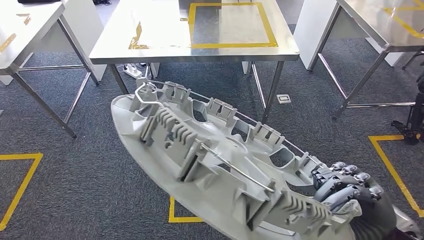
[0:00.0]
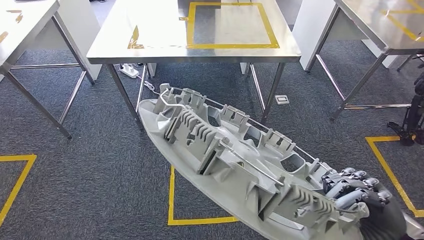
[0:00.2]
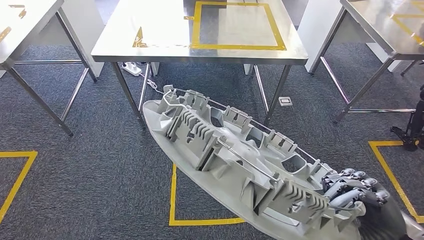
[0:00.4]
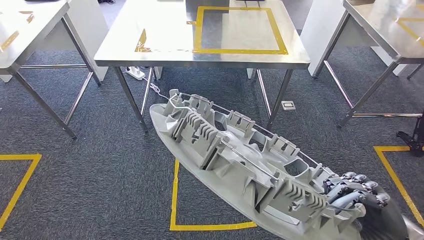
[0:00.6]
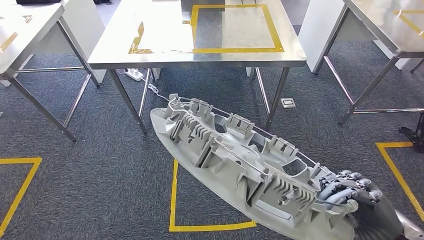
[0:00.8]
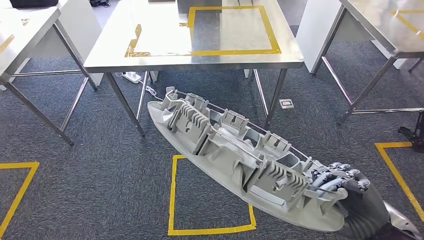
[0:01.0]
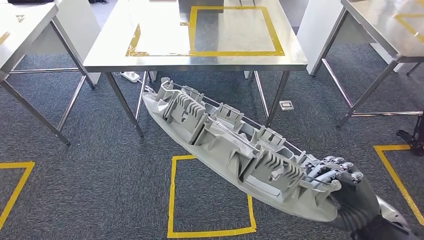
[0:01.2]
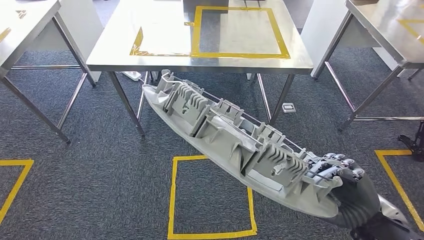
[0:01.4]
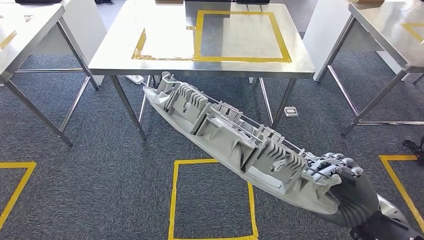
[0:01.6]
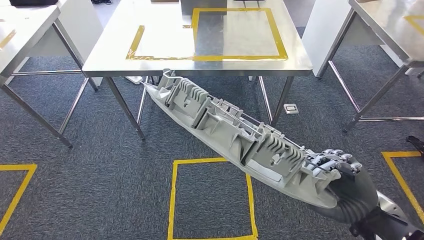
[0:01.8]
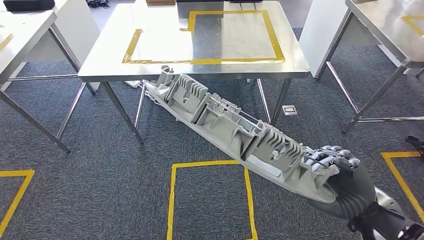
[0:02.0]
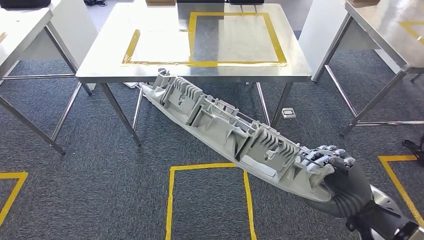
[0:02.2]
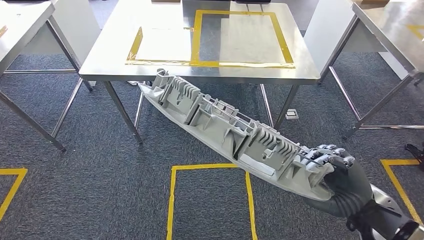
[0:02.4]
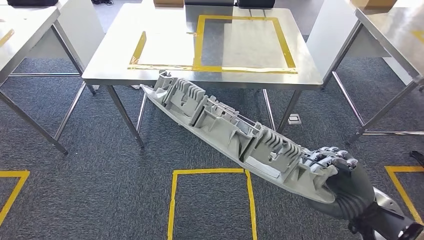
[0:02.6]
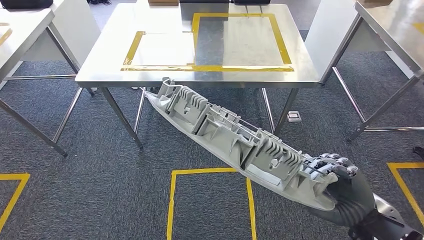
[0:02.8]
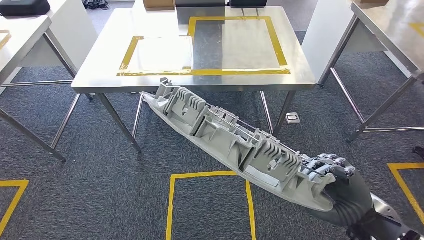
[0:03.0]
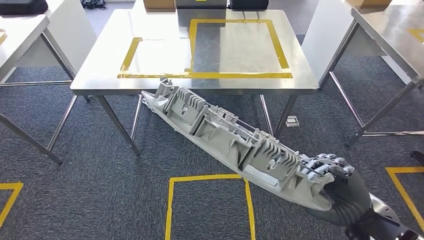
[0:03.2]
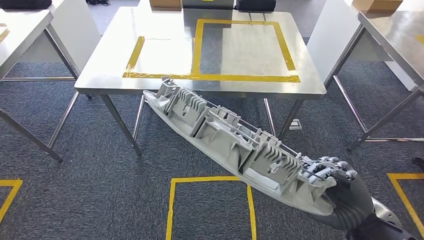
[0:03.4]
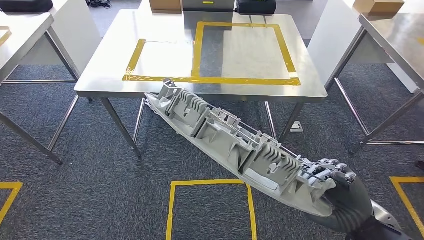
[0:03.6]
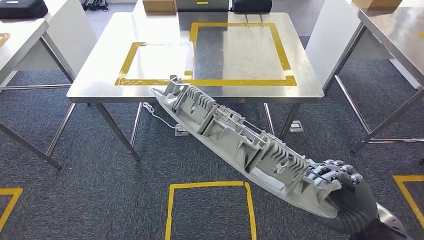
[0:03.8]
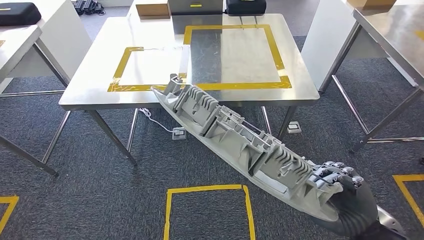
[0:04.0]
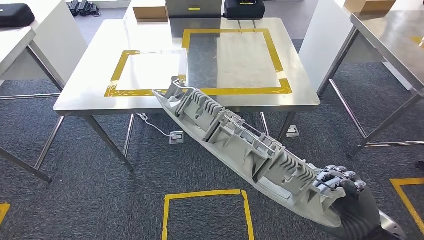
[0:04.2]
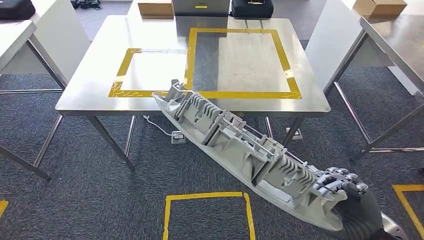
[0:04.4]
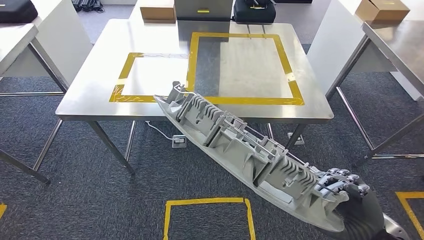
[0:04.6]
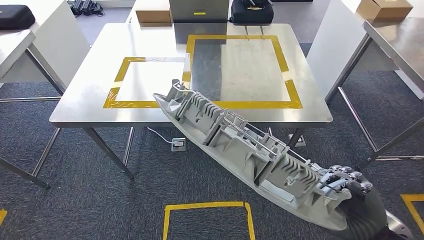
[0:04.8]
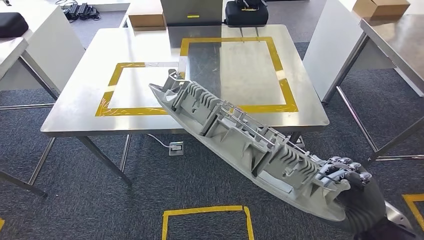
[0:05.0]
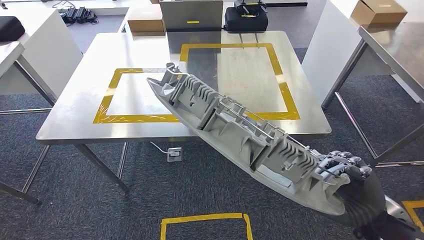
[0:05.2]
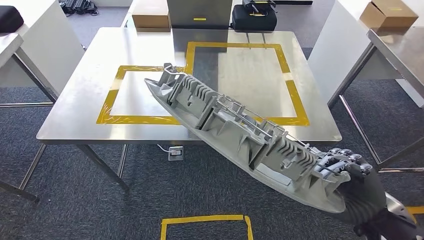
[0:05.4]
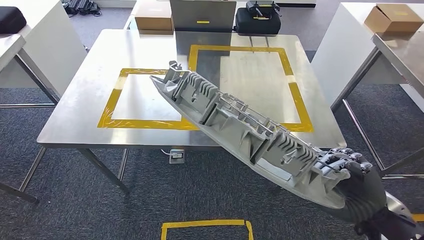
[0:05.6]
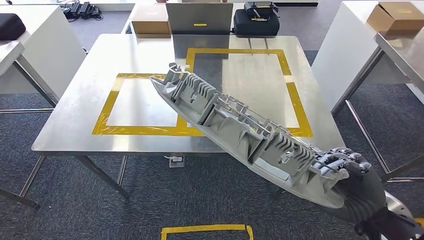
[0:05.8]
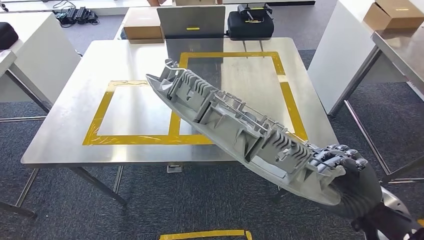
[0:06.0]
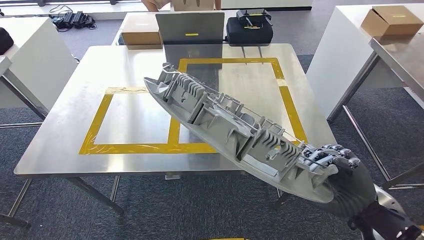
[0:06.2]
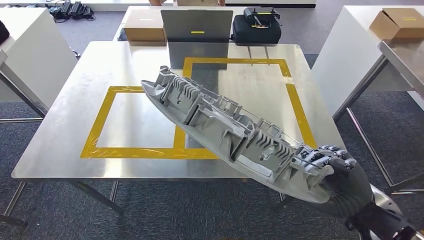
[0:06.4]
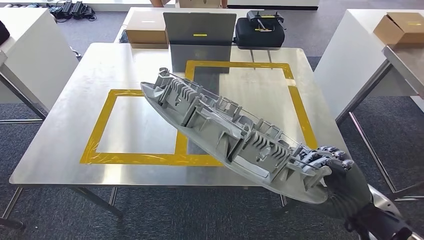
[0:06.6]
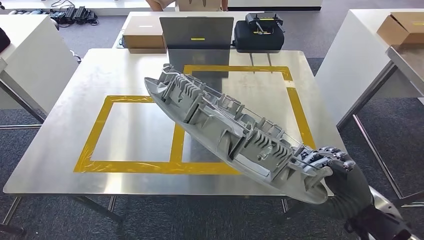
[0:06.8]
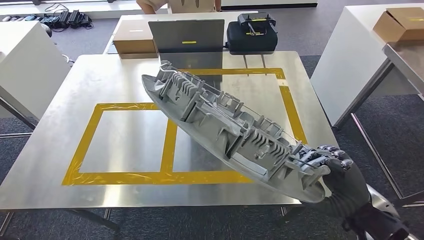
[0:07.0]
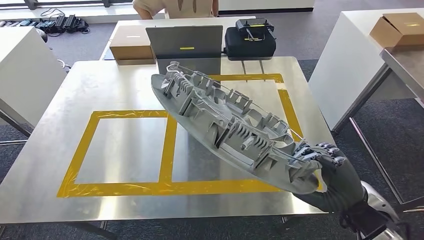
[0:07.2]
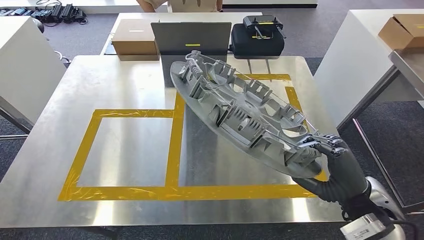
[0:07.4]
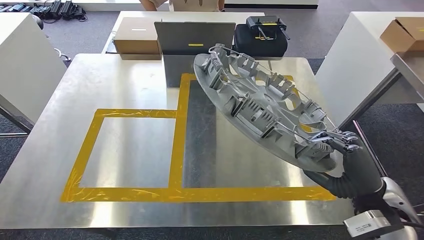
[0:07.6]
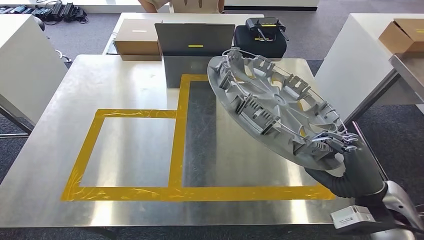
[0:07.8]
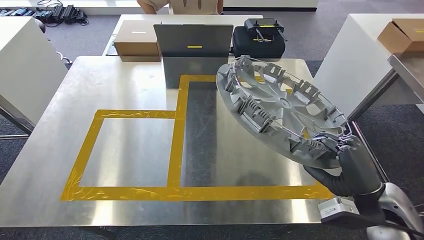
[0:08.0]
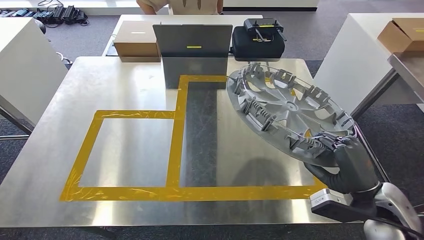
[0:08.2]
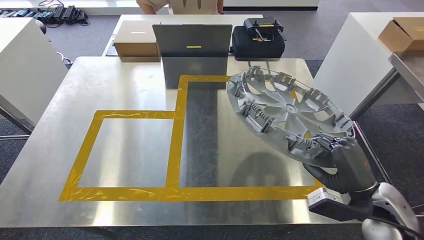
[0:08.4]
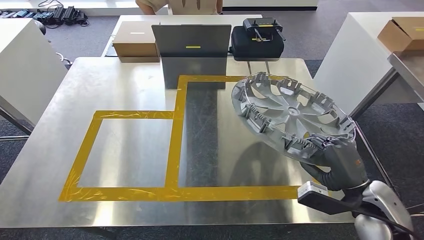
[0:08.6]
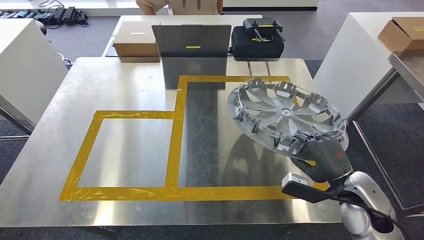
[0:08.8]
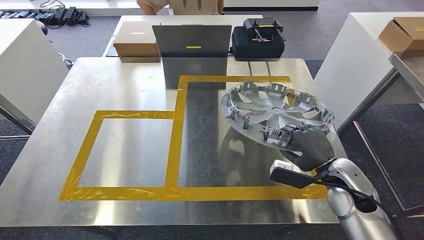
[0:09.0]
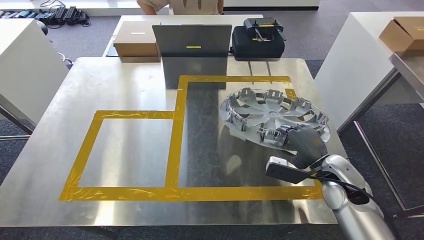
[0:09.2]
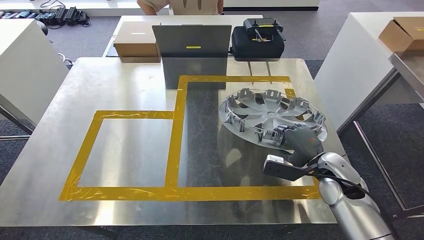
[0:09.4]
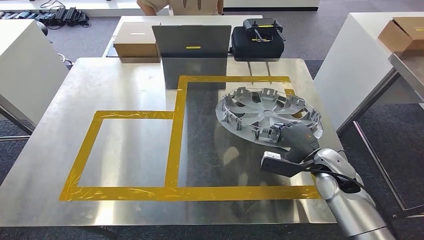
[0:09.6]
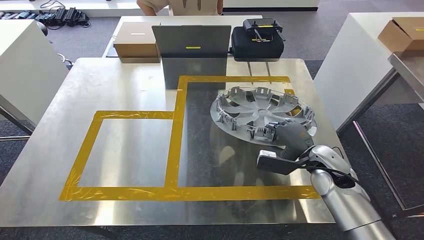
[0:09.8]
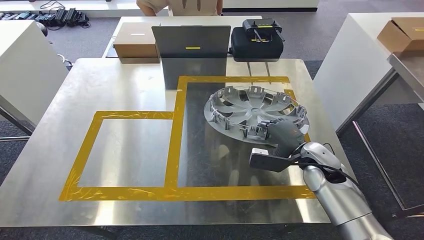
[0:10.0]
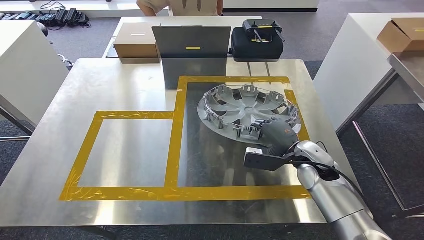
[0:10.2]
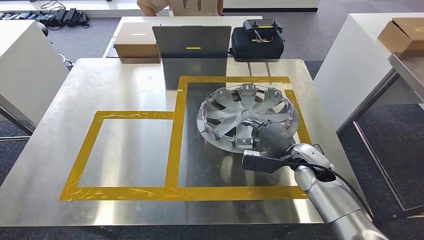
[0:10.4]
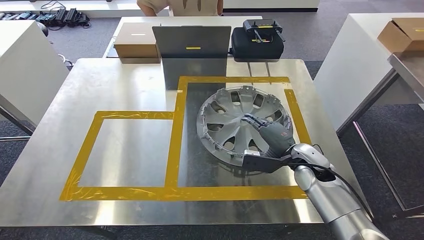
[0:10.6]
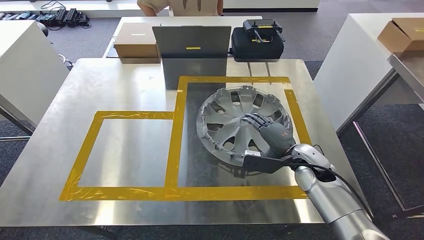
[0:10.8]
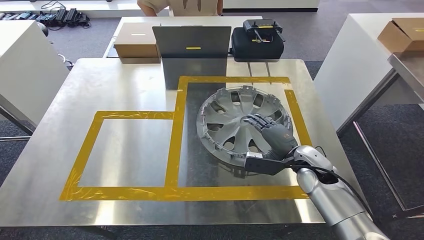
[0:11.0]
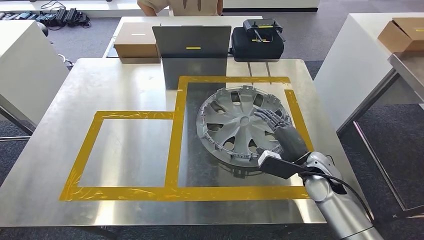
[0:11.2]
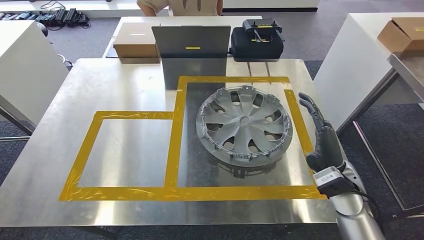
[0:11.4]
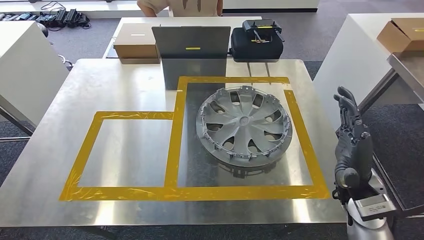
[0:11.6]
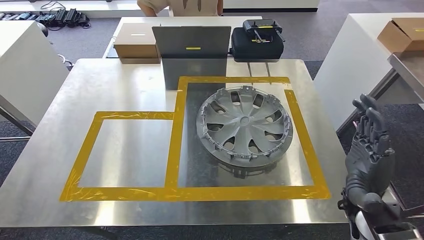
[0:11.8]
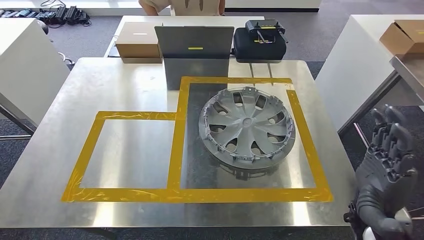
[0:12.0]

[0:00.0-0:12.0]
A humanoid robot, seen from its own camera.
Step, 0:00.0 to 0:07.2: Move the small parts to the workbench.
Step, 0:07.4 to 0:11.4: Insert the small parts into the corresponding holes on the workbench.
0:09.0 to 0:10.4: The right hand travels forward and to the left by about 10 cm.

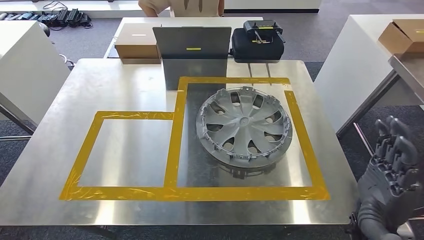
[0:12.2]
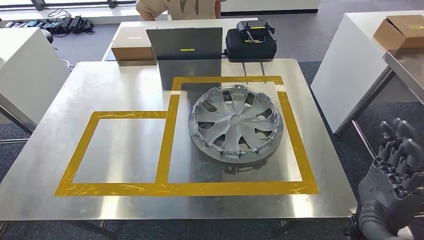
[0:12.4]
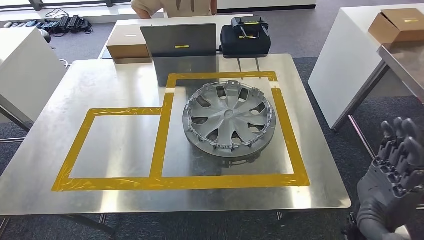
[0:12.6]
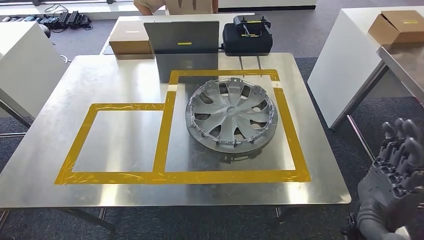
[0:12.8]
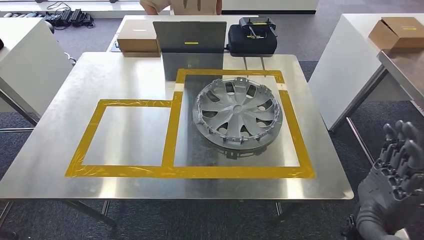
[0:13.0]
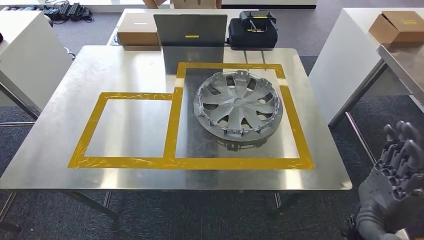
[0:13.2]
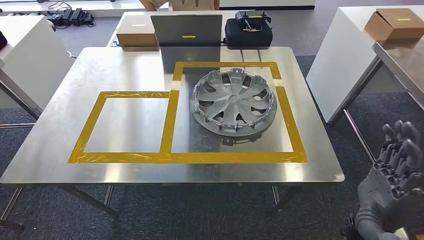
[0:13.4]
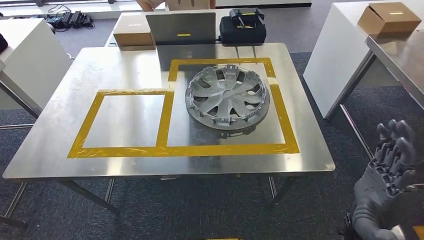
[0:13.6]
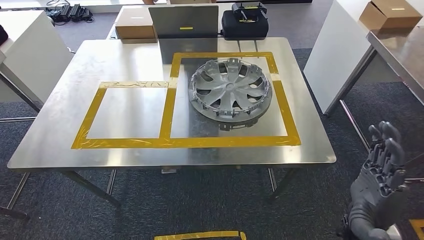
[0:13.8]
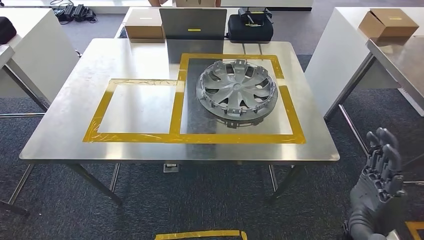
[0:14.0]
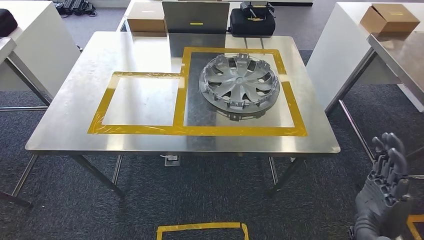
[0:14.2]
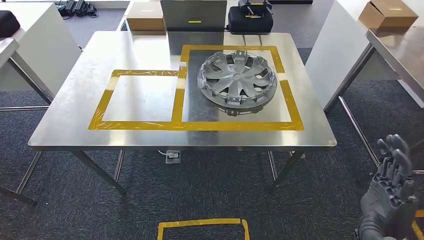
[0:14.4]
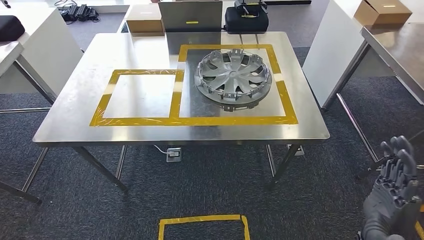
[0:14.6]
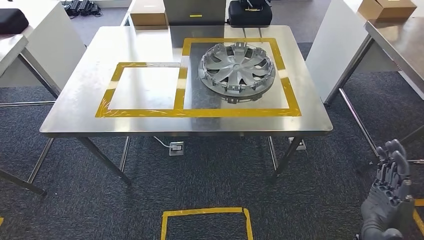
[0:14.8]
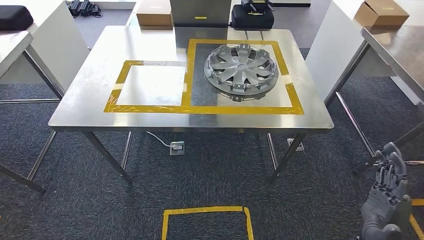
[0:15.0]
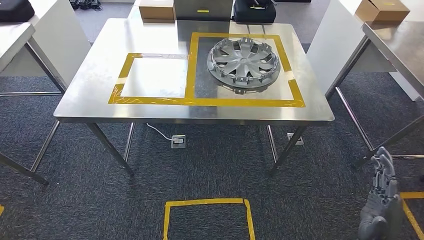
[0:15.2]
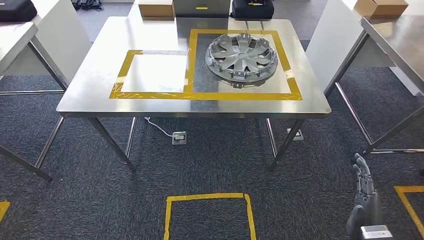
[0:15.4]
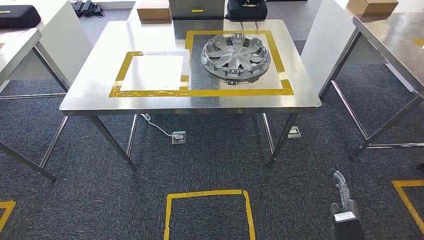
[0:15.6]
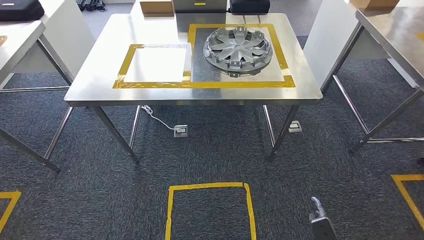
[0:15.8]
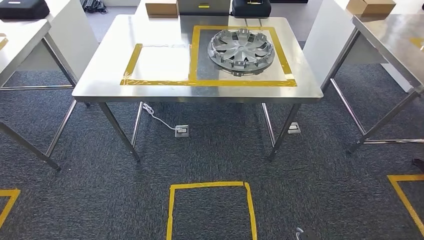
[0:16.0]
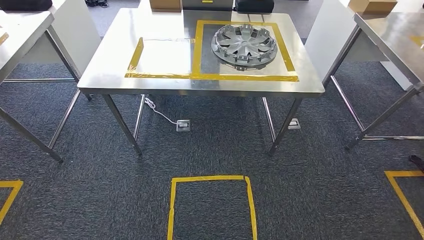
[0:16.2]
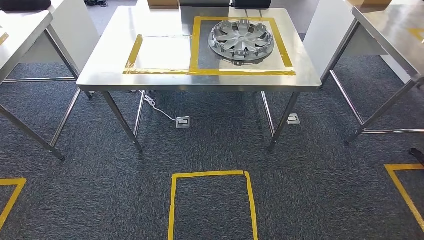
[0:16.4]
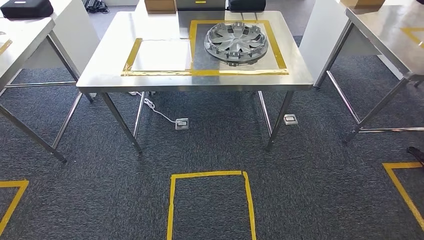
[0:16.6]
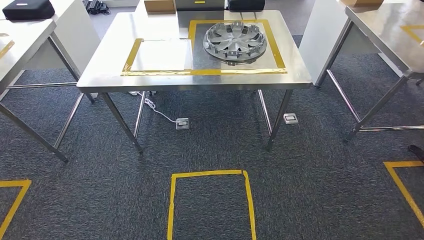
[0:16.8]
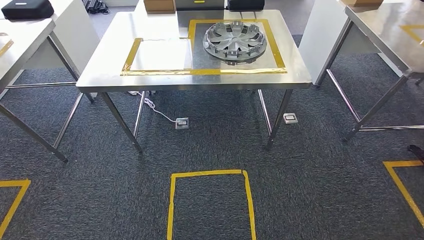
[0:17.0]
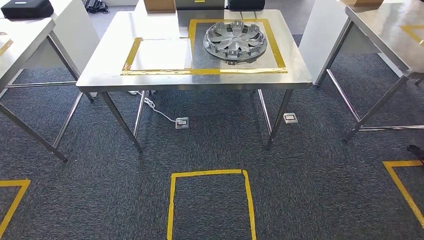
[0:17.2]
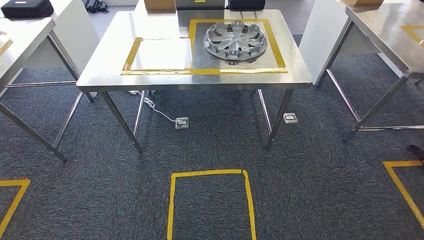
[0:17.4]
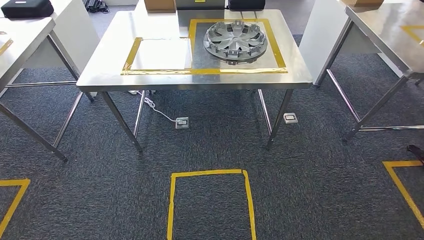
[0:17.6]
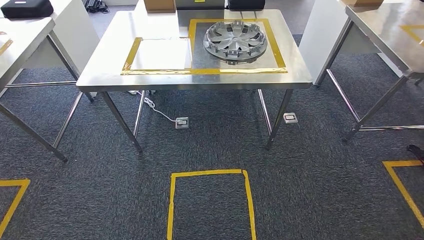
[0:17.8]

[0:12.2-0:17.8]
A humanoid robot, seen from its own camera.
Step, 0:12.2 to 0:17.8: Move to the initial position at the workbench.
